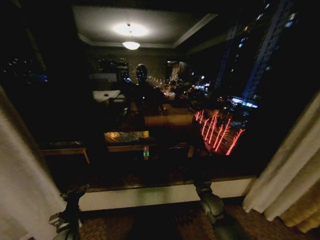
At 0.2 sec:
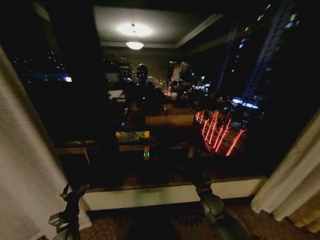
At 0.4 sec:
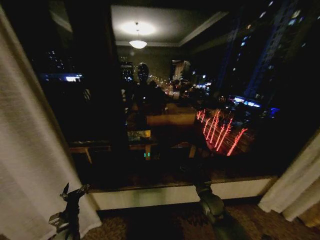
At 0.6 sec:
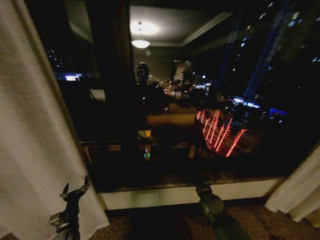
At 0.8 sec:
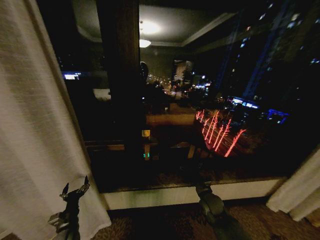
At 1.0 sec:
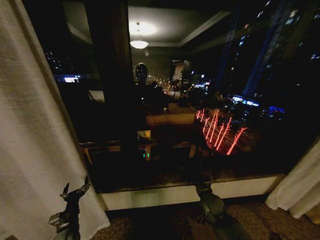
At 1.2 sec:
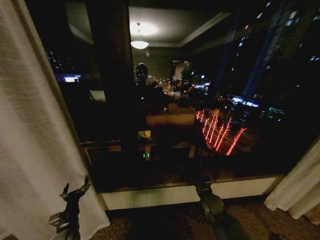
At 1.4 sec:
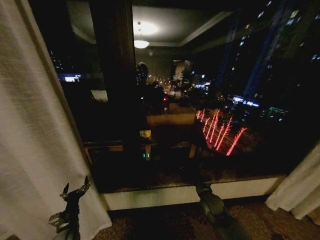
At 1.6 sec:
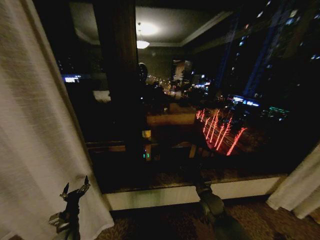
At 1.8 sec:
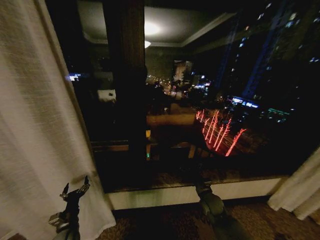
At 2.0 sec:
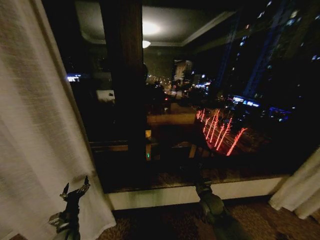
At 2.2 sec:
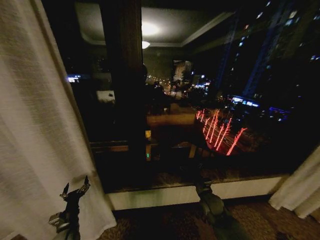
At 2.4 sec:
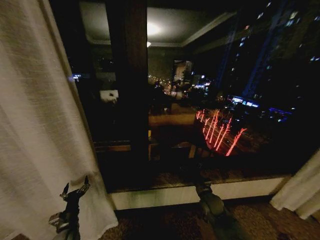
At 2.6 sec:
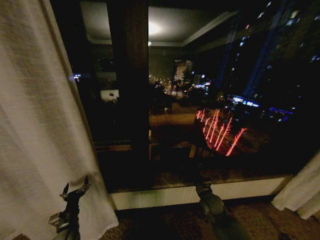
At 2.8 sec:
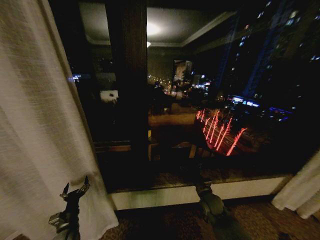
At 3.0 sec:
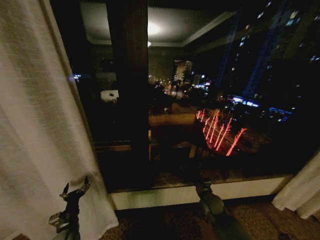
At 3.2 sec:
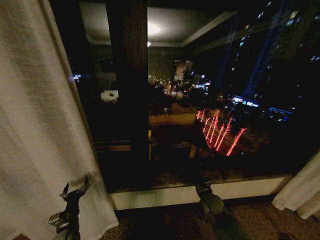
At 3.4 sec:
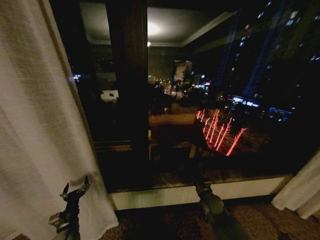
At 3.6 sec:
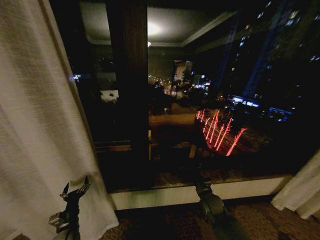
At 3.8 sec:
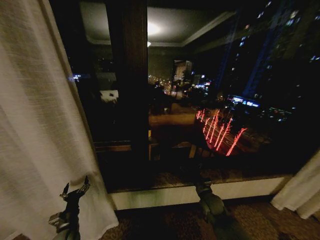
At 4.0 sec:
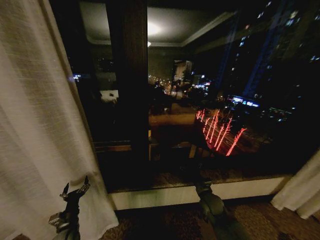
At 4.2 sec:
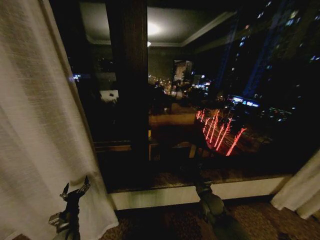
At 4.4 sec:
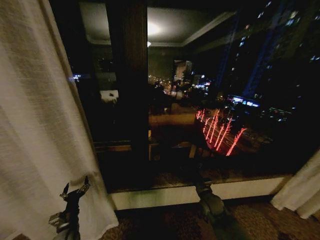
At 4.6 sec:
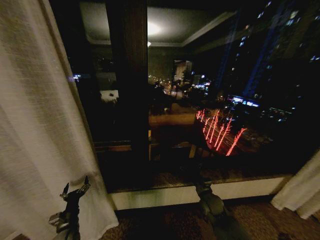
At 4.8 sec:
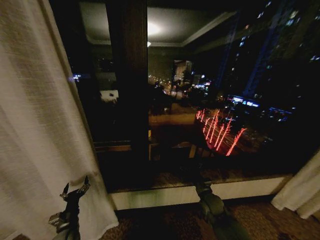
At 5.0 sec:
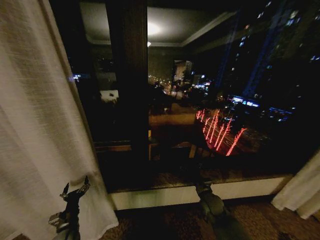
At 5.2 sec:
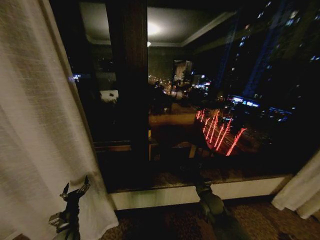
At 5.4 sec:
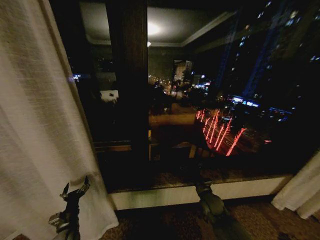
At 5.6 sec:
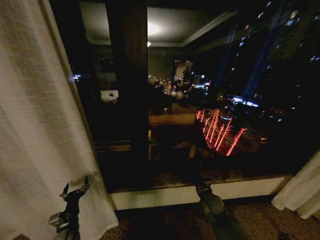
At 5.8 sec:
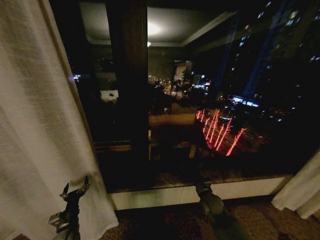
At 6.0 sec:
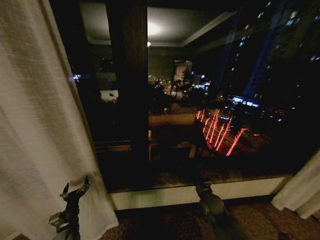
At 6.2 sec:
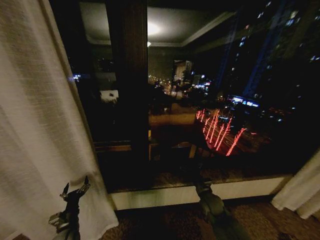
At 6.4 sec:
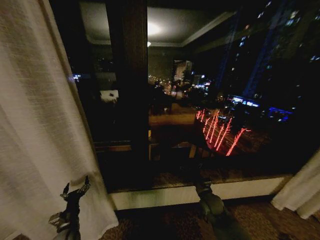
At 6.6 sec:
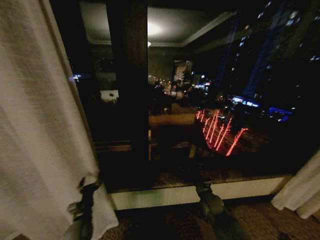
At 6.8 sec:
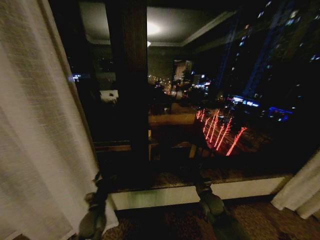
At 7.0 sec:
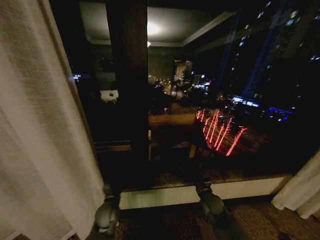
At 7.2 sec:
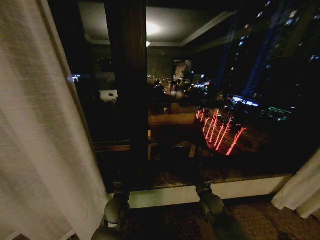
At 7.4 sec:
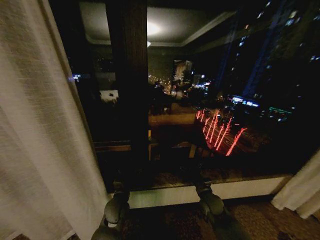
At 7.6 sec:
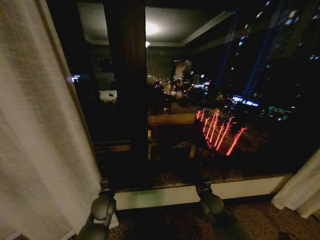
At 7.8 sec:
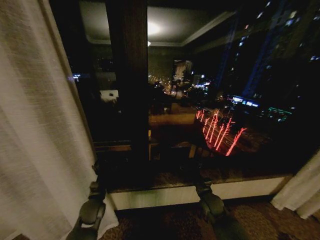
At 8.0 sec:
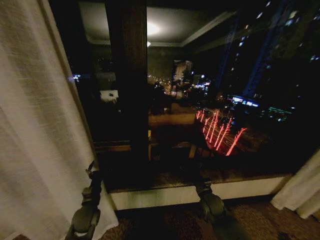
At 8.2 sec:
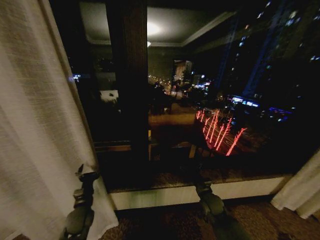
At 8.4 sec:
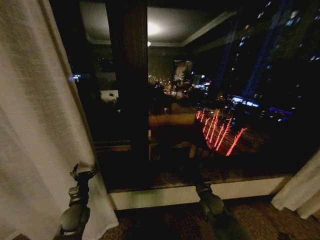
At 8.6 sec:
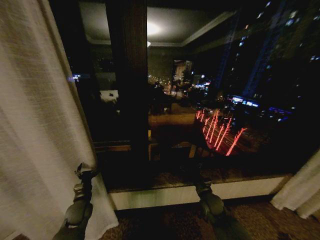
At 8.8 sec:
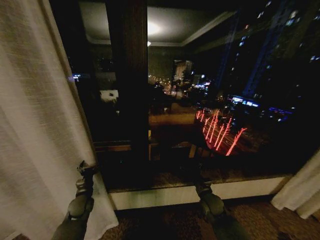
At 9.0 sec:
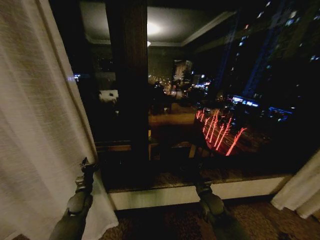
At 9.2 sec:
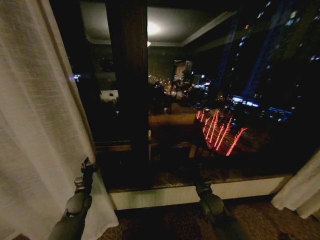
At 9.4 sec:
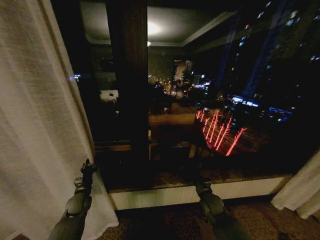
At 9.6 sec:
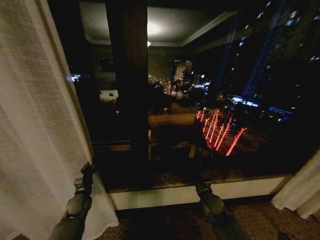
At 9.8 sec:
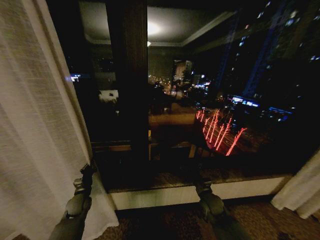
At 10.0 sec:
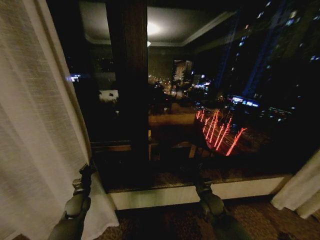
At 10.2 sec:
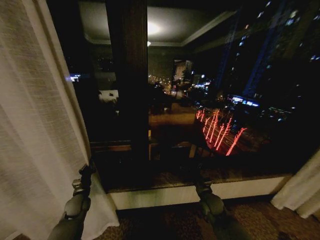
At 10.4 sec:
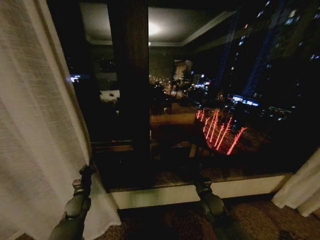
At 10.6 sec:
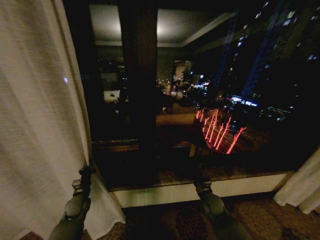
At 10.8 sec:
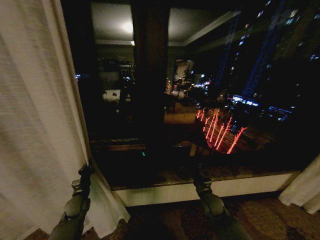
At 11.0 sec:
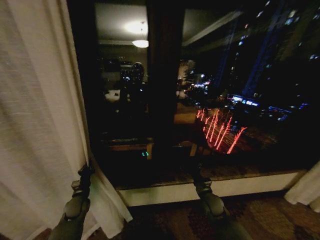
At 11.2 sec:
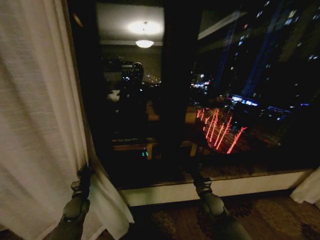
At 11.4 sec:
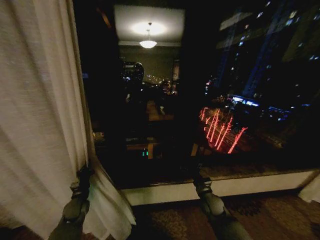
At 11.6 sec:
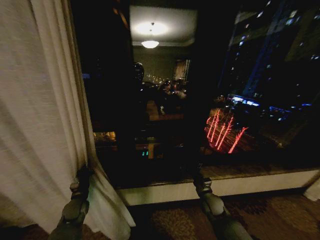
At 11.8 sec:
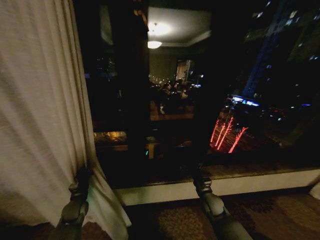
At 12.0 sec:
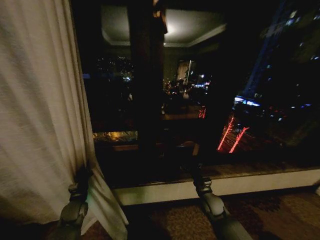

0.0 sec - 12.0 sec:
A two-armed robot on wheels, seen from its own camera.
Task of the whole recording: Open the curtains by pulling them apart, changing their state from closed to fully open.
1.6 sec - 6.0 sec: Both grippers stay about where they are.
6.0 sec - 7.6 sec: The left gripper heads to the right, forward and upward, covering approximately 20 cm.
7.6 sec - 9.0 sec: The left gripper travels to the left by approximately 15 cm.
9.0 sec - 10.4 sec: The left gripper closes its fingers.

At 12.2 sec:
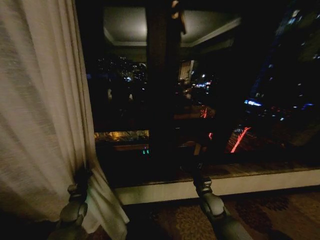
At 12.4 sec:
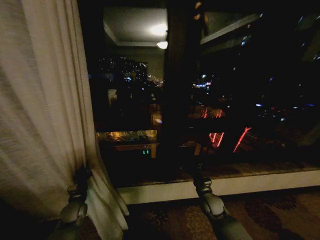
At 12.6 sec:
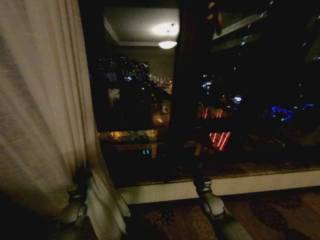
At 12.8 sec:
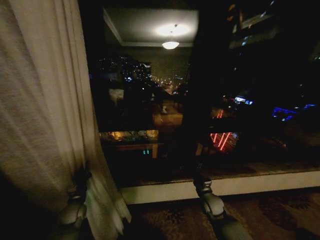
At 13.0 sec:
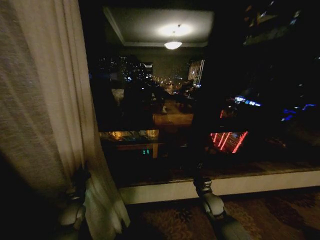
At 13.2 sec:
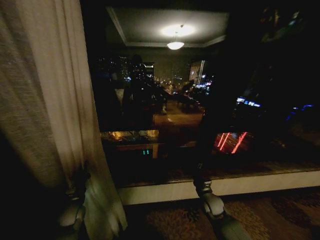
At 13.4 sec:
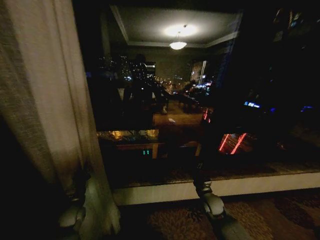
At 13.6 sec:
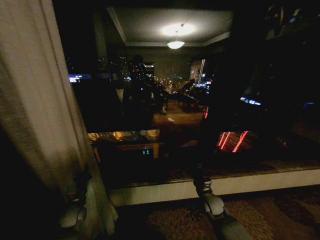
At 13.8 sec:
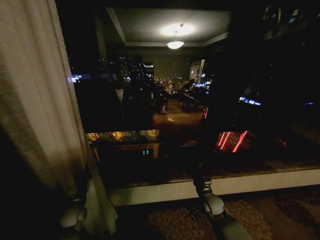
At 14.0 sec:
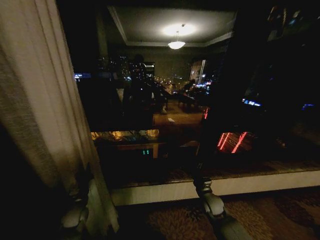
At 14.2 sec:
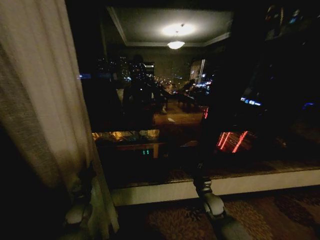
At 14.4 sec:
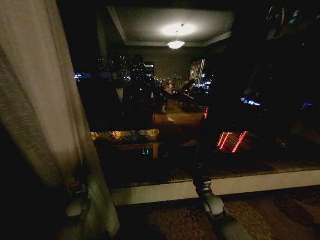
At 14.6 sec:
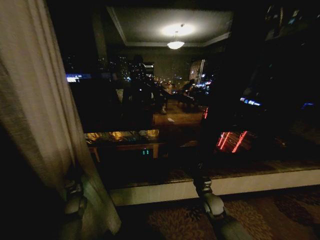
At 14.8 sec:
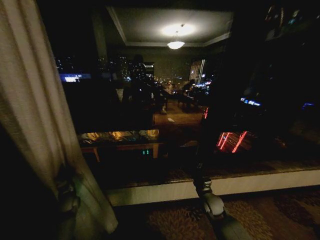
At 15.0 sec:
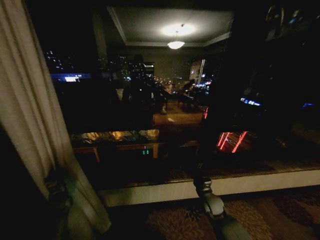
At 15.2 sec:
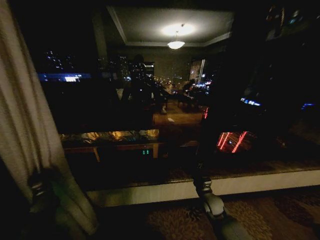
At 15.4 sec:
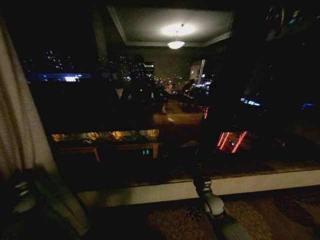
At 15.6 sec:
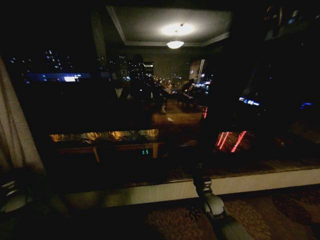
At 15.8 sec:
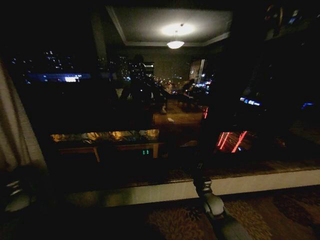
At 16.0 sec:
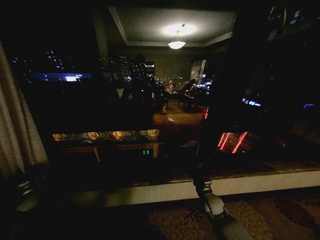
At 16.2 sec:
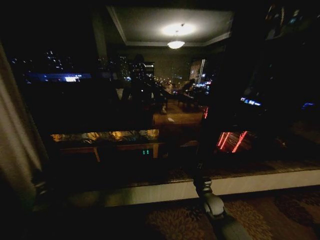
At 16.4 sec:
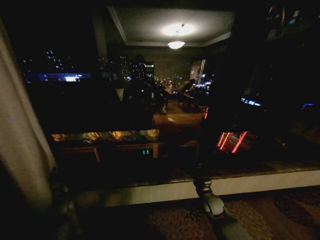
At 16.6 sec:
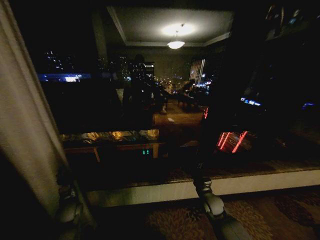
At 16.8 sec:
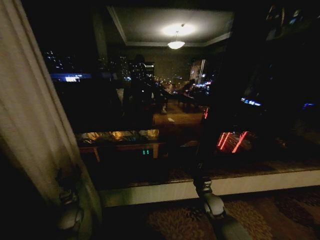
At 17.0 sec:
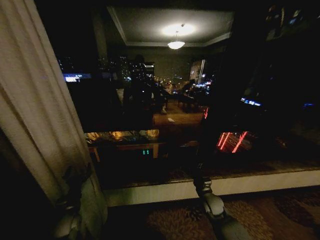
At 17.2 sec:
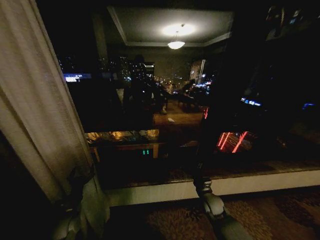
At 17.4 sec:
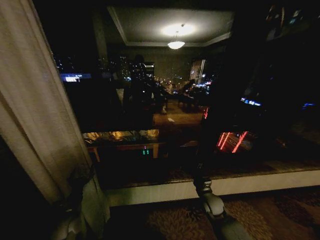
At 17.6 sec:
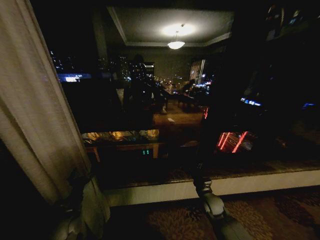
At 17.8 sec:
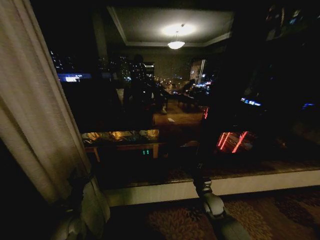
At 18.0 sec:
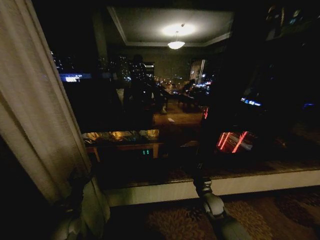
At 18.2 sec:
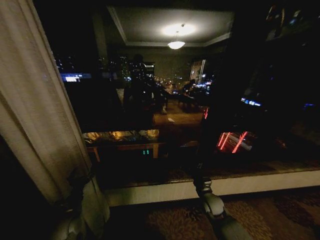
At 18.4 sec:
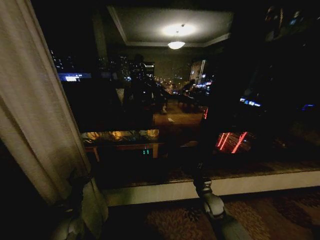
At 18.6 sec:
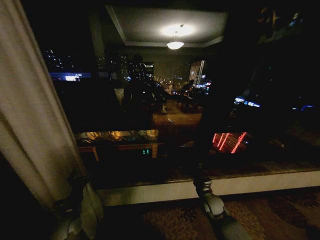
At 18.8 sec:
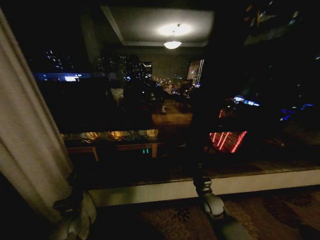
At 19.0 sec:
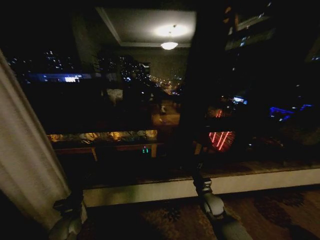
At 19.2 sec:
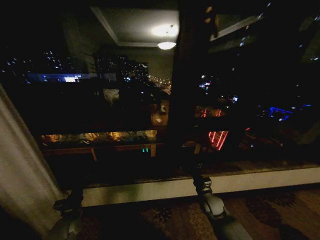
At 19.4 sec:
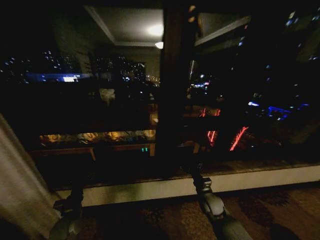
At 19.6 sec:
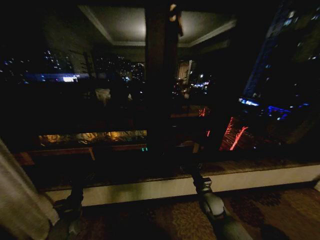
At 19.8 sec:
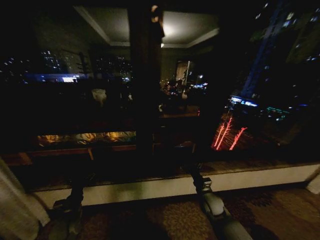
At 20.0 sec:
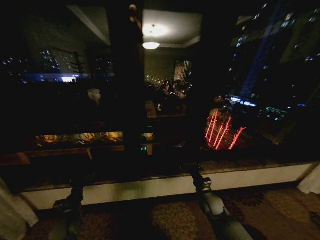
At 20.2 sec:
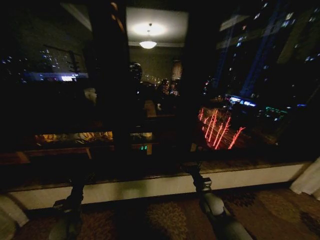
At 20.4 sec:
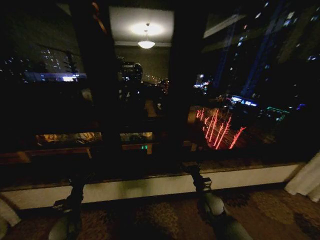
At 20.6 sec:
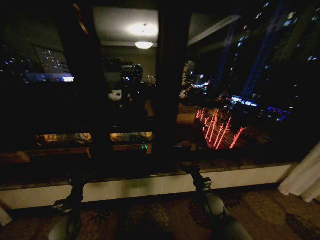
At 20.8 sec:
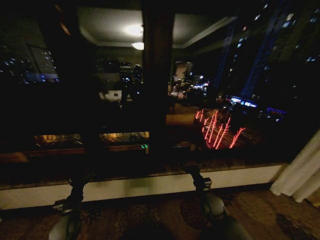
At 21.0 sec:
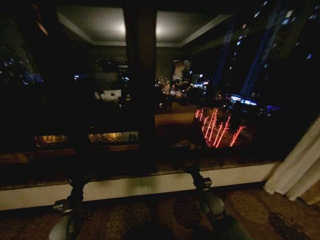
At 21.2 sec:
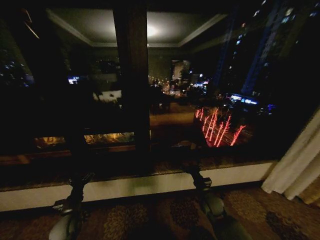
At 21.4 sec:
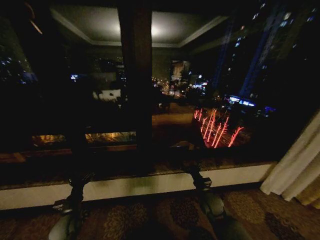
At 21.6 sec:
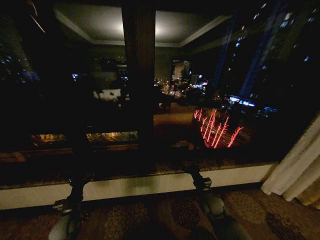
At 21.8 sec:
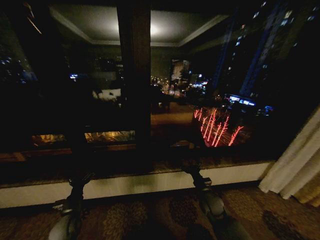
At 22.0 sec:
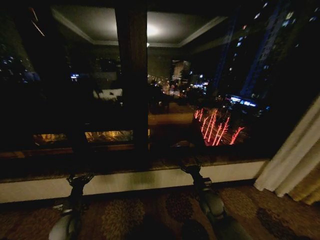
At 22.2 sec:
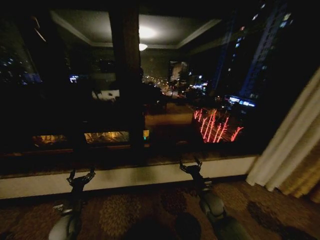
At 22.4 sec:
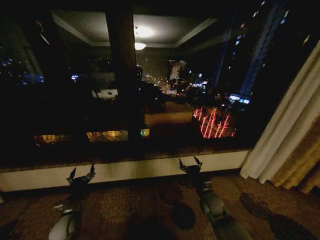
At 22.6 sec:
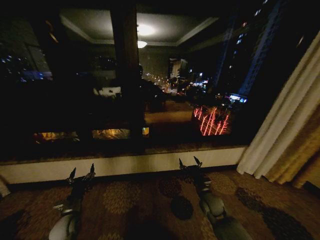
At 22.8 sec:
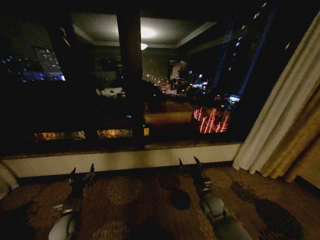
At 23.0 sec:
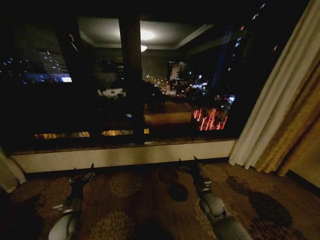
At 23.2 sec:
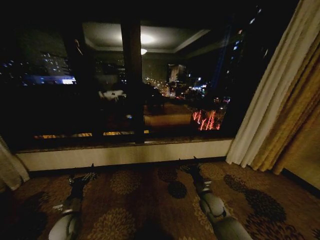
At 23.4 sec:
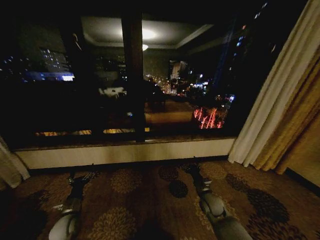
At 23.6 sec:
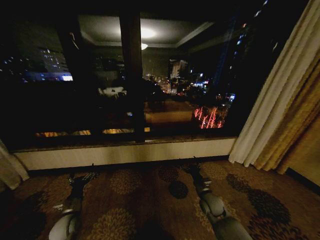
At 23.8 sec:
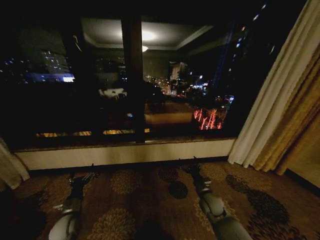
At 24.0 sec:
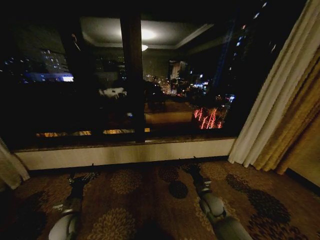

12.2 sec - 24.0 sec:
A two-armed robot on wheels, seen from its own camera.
Task of the whole recording: Open the curtains by pulling them apart, changing their state from closed to fully open.
13.6 sec - 15.2 sec: The left gripper goes about 15 cm to the left.
15.2 sec - 16.6 sec: The left gripper heads to the right, covering some 15 cm, and opens up.
16.6 sec - 18.2 sec: The left gripper goes about 5 cm backward, and opens.
